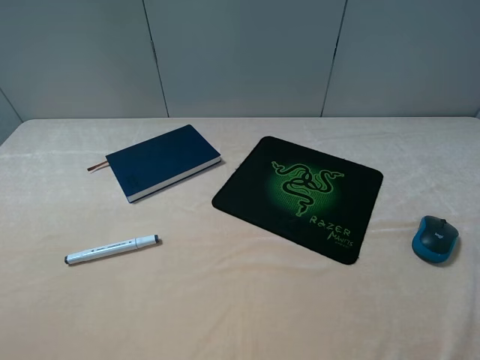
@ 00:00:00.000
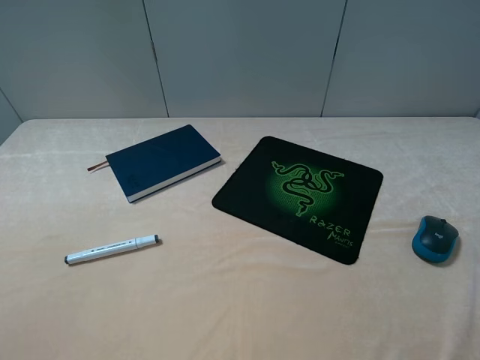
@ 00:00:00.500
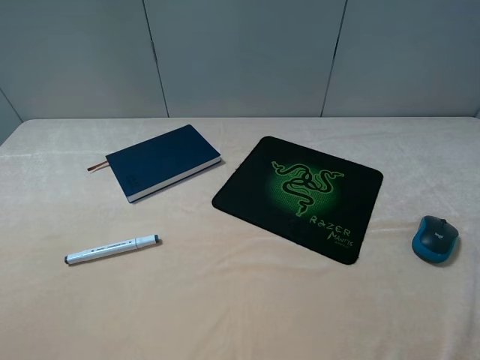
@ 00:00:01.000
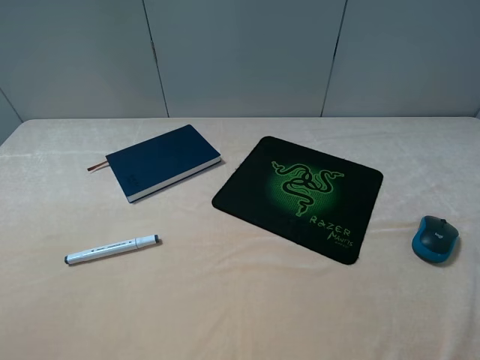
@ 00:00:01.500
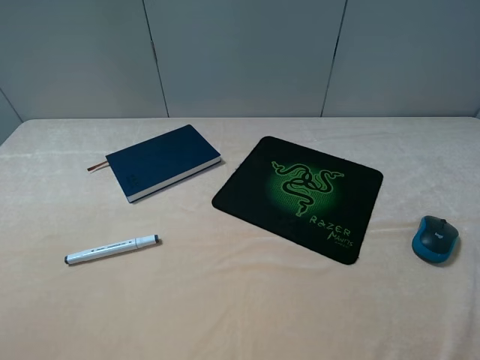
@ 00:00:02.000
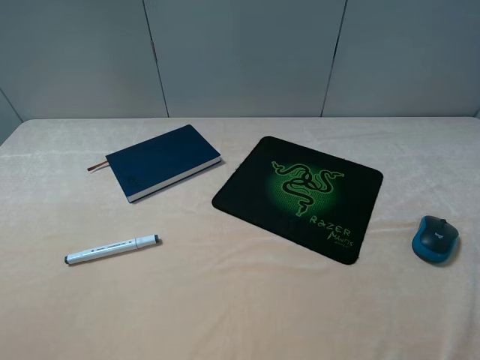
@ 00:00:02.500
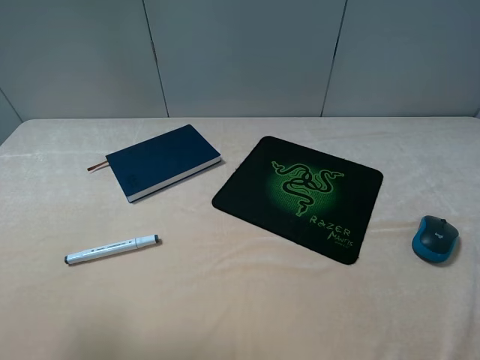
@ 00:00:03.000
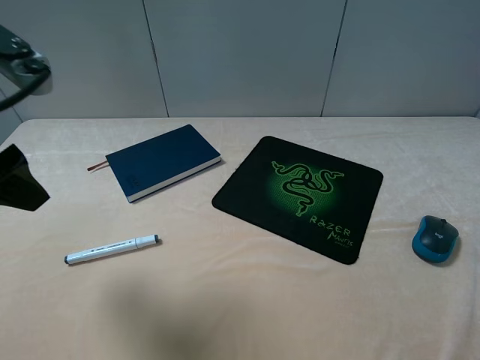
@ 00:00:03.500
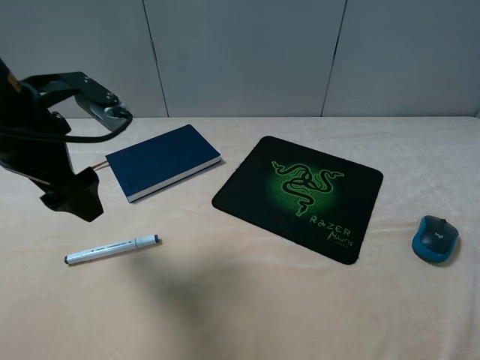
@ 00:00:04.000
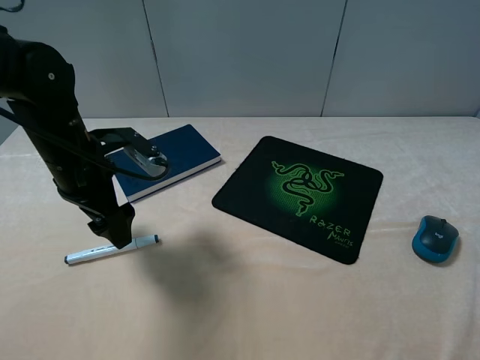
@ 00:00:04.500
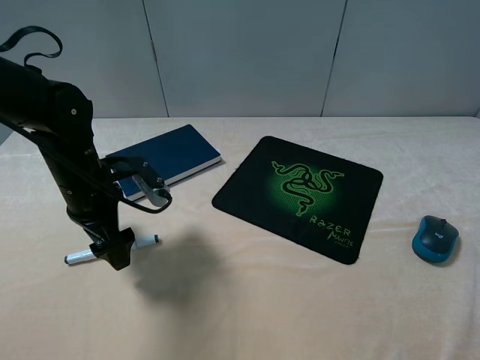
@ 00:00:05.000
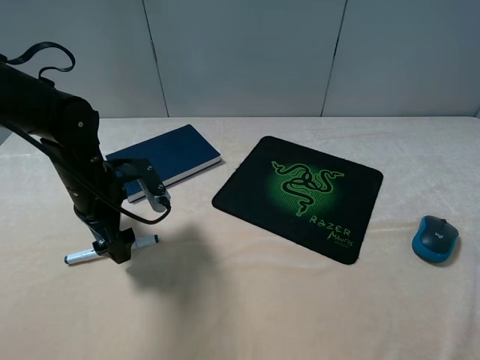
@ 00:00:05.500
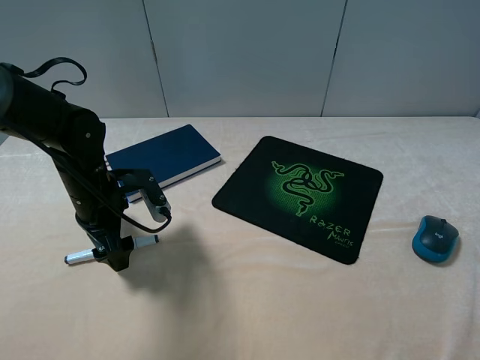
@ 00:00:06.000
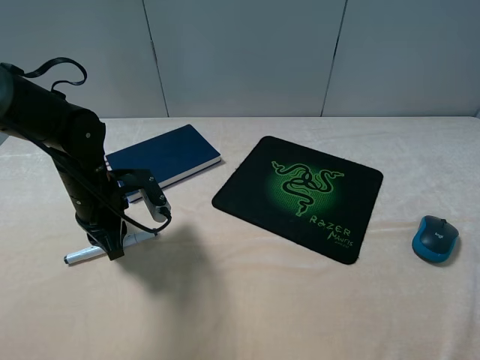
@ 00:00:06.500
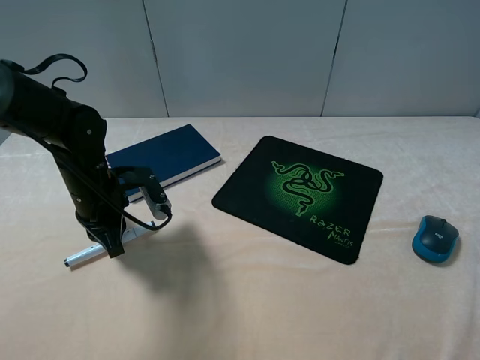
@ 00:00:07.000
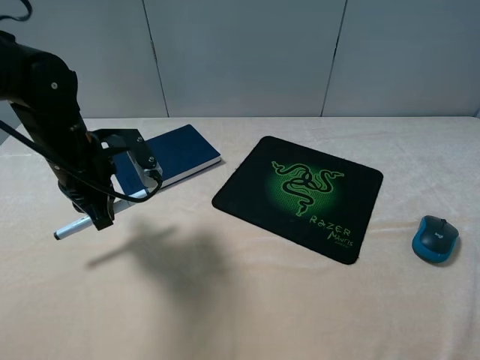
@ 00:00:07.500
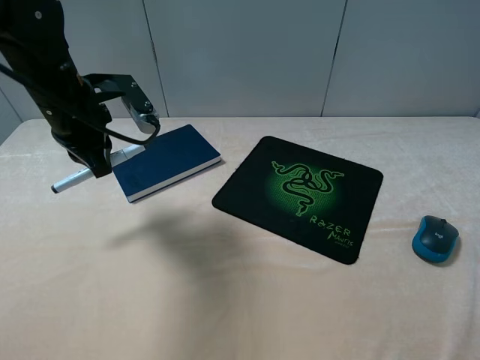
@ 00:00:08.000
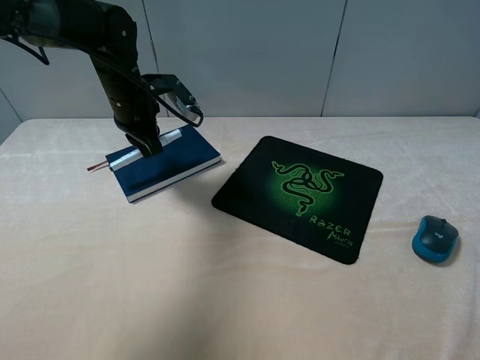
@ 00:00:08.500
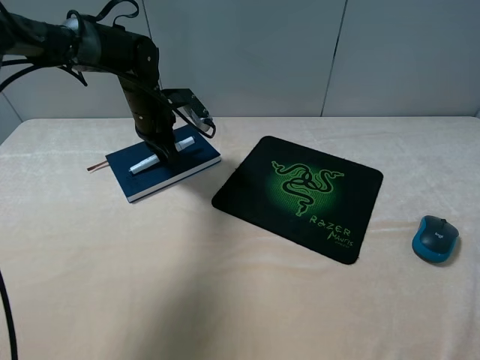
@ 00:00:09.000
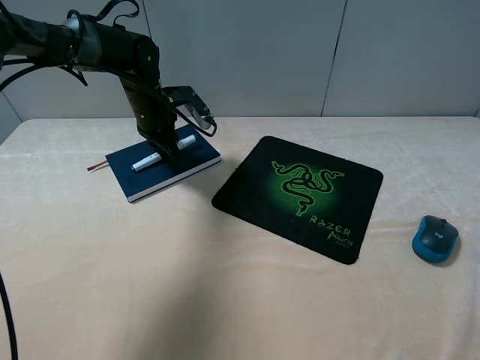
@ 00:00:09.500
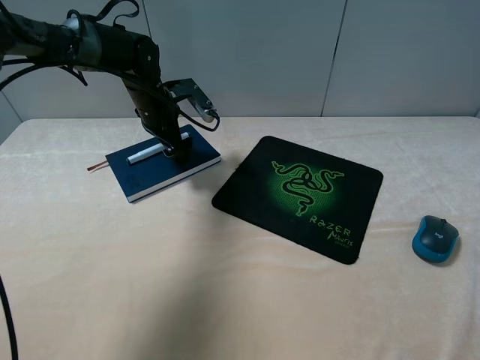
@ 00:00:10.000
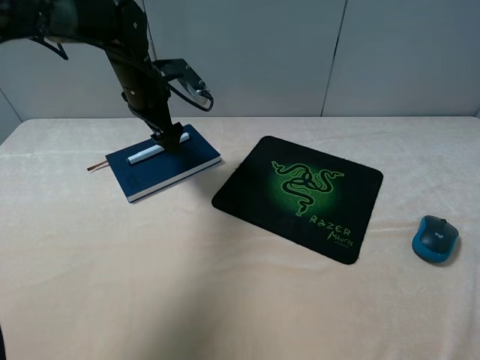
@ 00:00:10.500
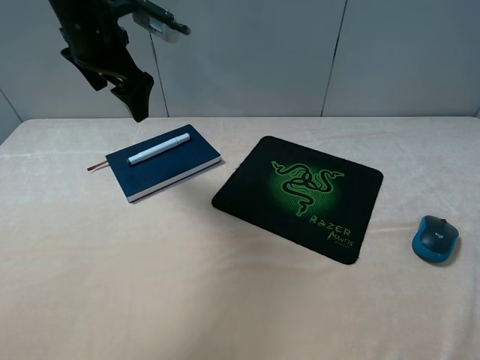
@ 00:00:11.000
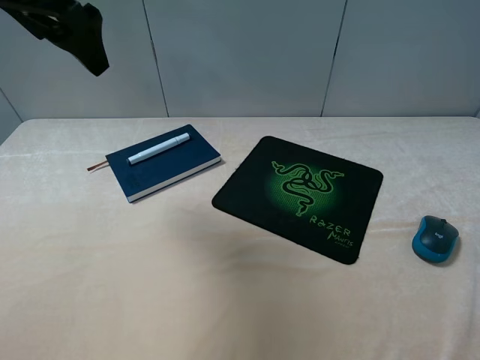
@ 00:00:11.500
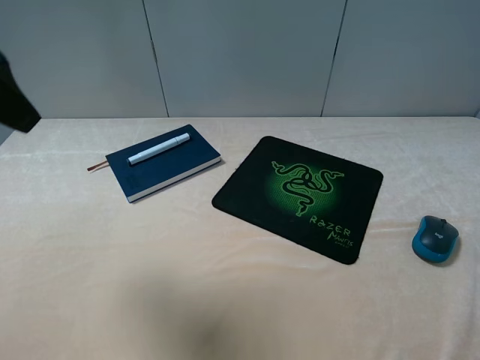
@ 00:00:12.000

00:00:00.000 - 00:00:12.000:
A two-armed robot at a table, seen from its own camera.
Step, 00:00:00.000 - 00:00:06.500: Grasp the marker with the left gripper.
Step, 00:00:07.000 - 00:00:09.500: Place the marker on the notebook with the left gripper.
00:00:00.000 - 00:00:02.000: The two grippers keep their place.
00:00:02.000 - 00:00:04.000: The left gripper goes about 25 cm forward.
00:00:04.000 - 00:00:06.000: The left gripper is displaced downward by some 15 cm.
00:00:06.000 - 00:00:08.000: The left gripper goes approximately 10 cm upward, and closes up.
00:00:08.000 - 00:00:10.000: The left gripper shifts roughly 15 cm forward and downward, and opens up.
00:00:10.000 - 00:00:12.000: The left gripper shifts some 35 cm backward and upward.

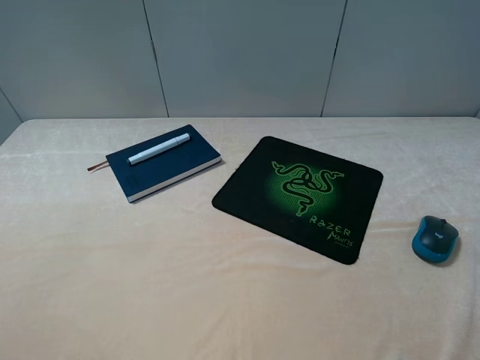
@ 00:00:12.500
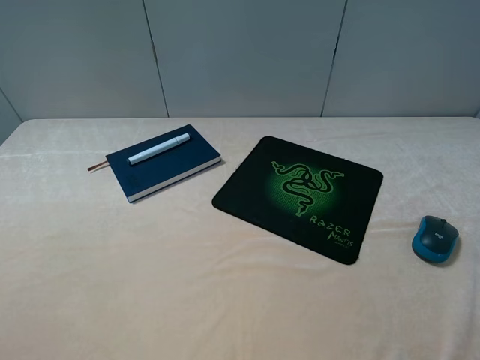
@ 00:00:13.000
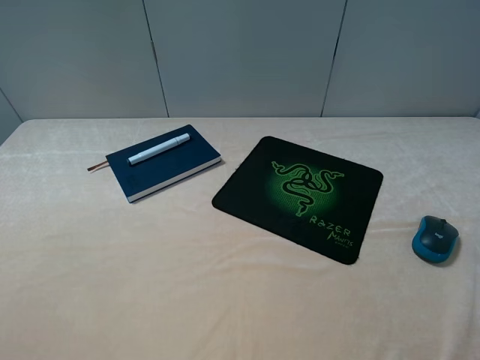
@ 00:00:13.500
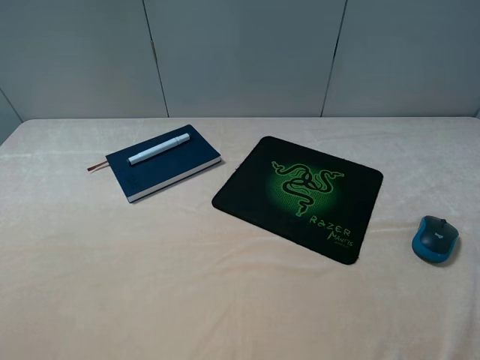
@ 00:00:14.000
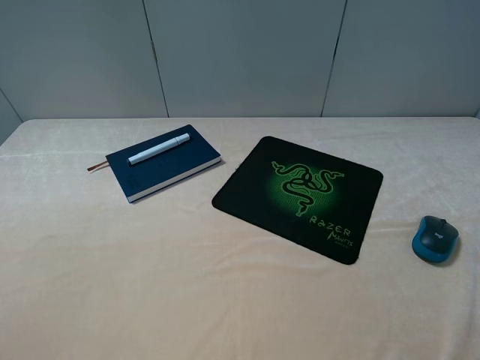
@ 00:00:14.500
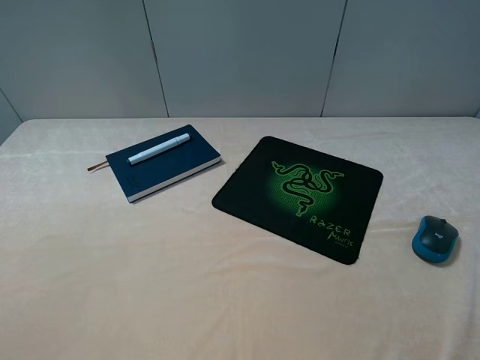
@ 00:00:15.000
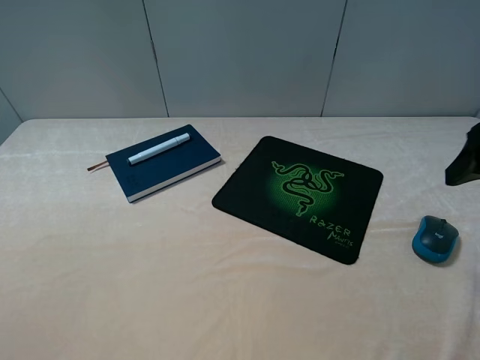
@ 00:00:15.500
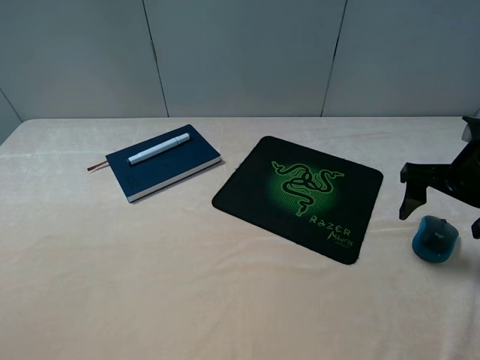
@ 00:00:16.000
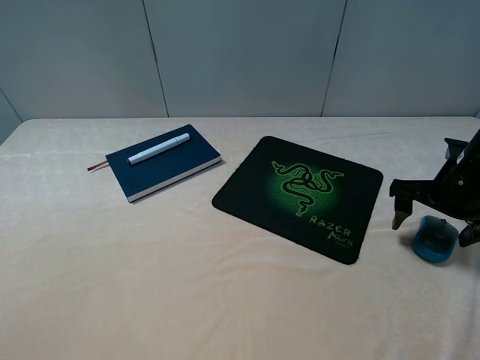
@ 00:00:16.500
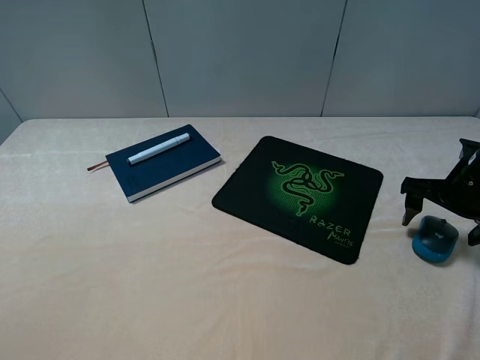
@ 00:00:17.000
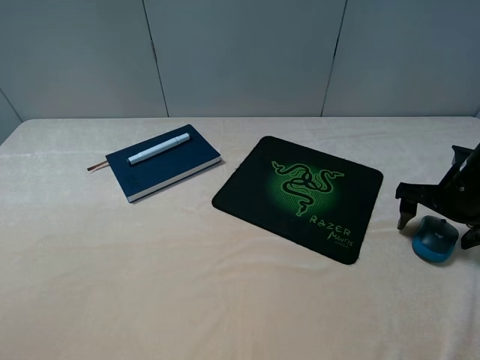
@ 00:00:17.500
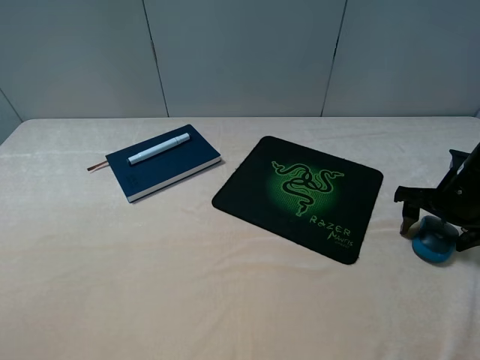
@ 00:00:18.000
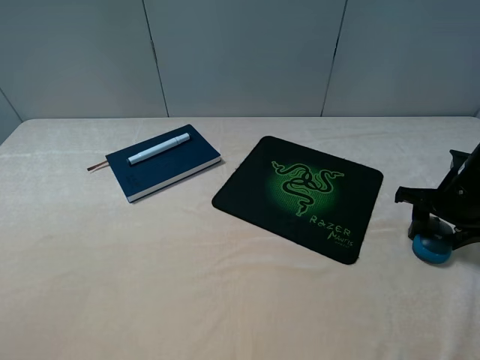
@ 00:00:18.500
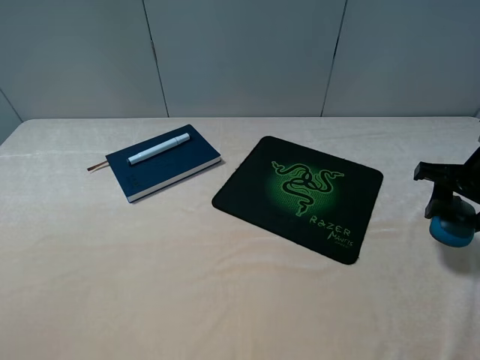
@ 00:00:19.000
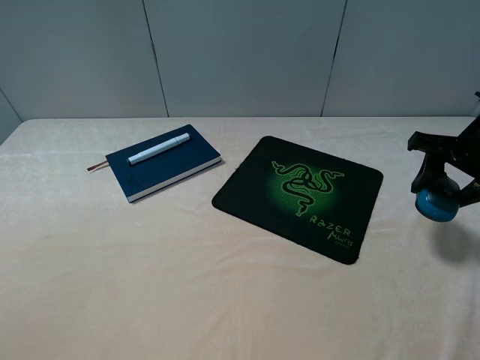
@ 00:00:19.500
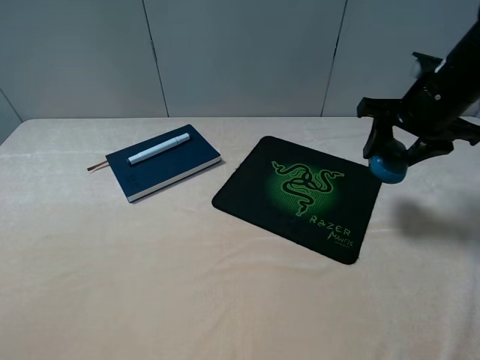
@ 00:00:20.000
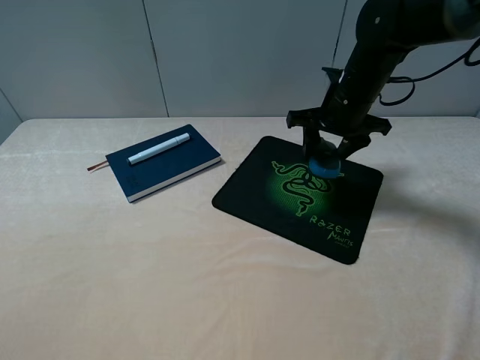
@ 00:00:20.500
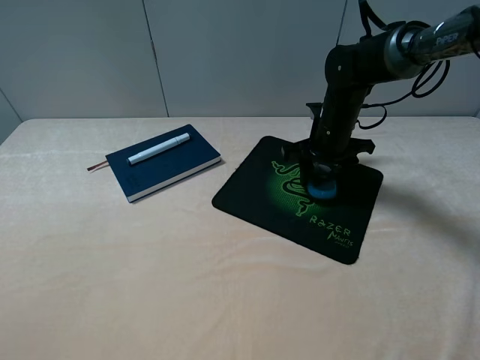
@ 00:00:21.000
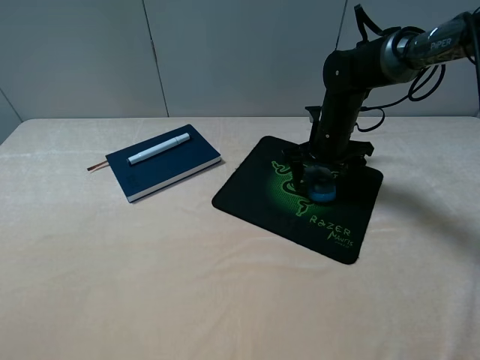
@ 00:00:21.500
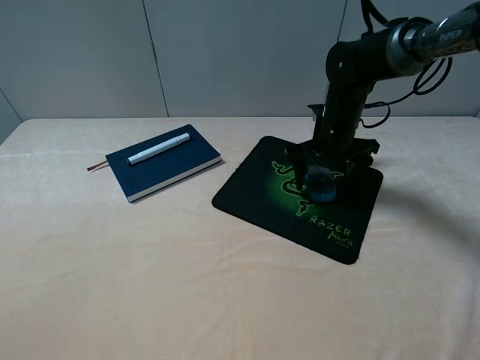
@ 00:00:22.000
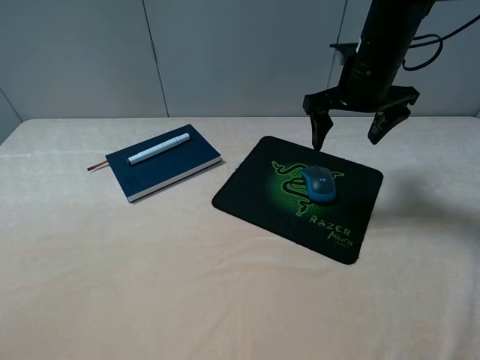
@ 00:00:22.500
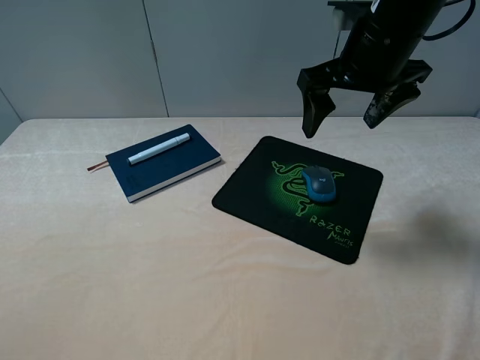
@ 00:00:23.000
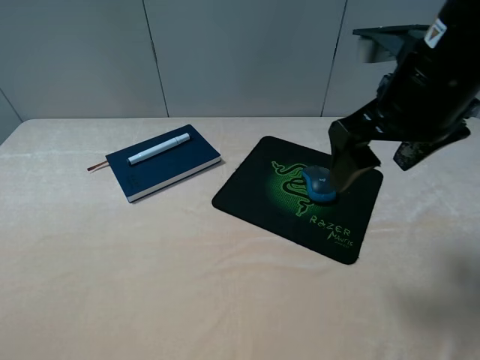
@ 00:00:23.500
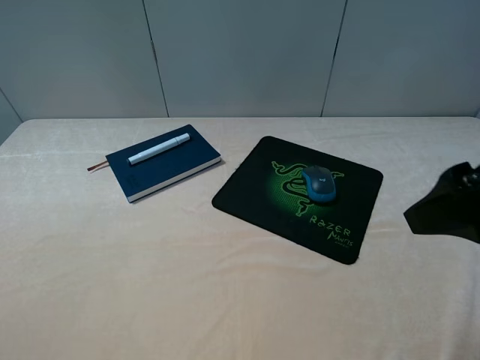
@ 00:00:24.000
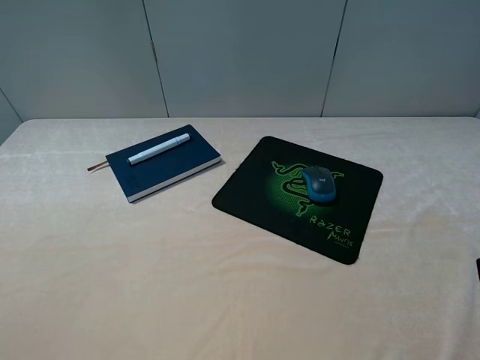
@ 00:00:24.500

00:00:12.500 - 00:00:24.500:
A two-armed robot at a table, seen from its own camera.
Step, 00:00:12.500 - 00:00:18.000: Grasp the mouse with the right gripper.
Step, 00:00:18.500 - 00:00:22.000: Place the mouse on the mouse pad with the right gripper.
00:00:14.500 - 00:00:16.500: The right gripper travels forward and downward by some 30 cm.
00:00:16.500 - 00:00:18.500: The right gripper closes.
00:00:18.500 - 00:00:20.500: The right gripper travels to the left and forward by approximately 20 cm.
00:00:20.500 - 00:00:22.500: The right gripper goes about 5 cm upward, and opens up.
00:00:22.500 - 00:00:24.500: The right gripper heads backward, covering about 35 cm.

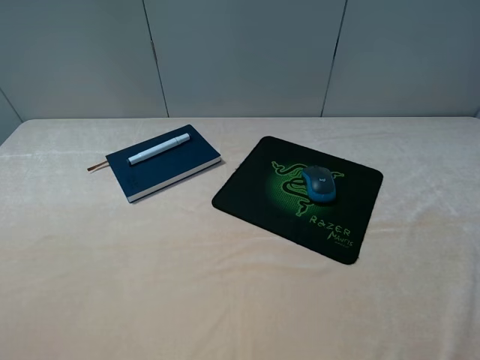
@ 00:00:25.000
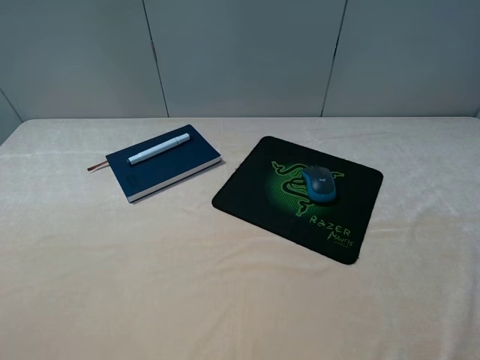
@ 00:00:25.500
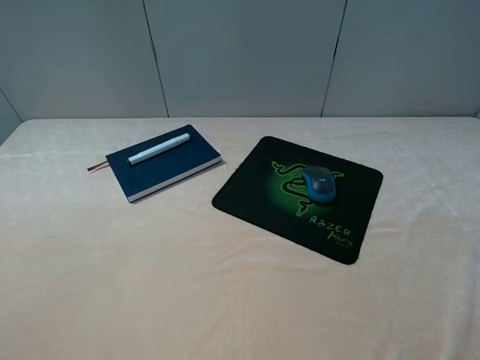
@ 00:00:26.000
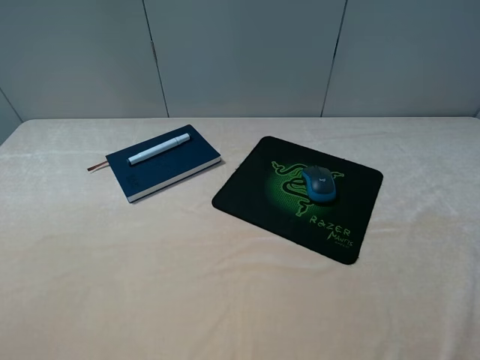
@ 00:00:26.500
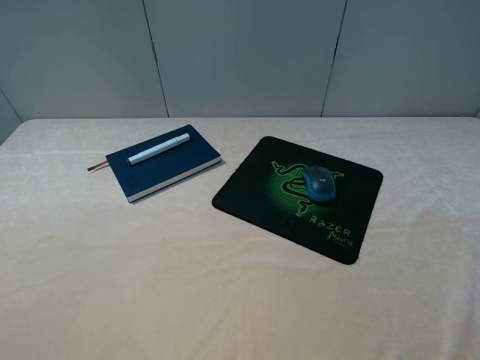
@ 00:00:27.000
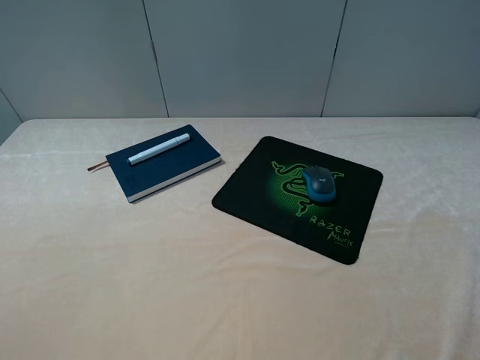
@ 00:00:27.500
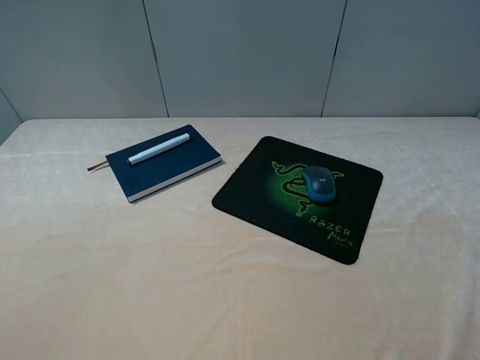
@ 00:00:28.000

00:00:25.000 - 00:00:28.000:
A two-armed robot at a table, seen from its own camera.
00:00:26.500 - 00:00:28.000: Both grippers stay put.
